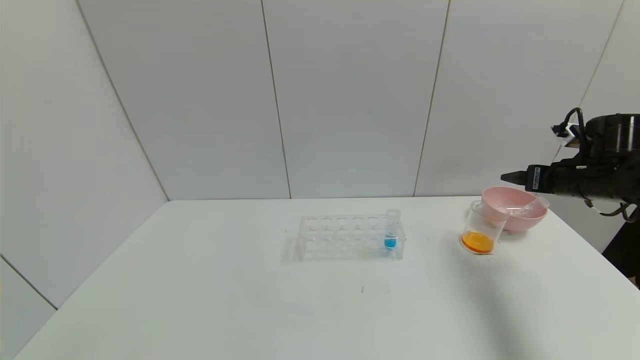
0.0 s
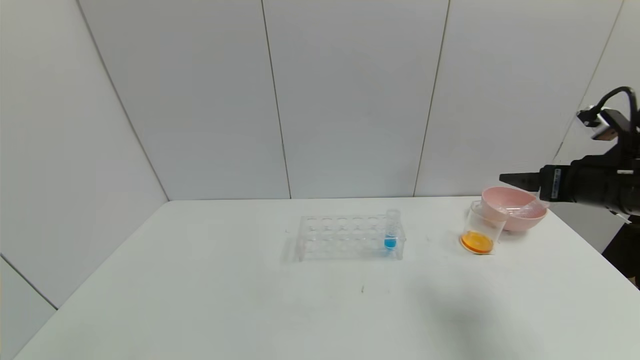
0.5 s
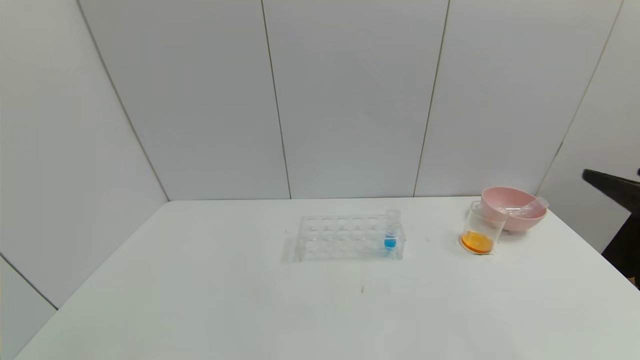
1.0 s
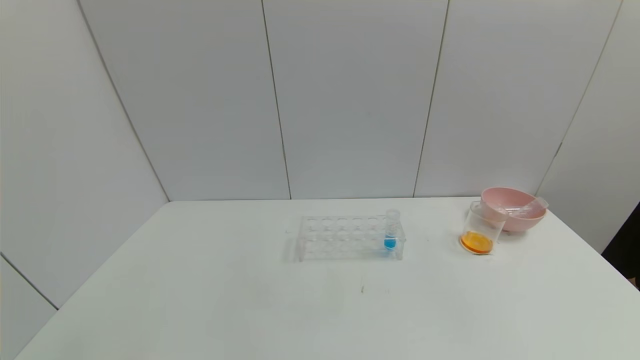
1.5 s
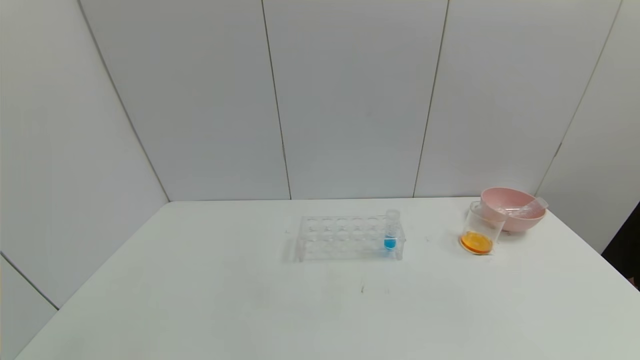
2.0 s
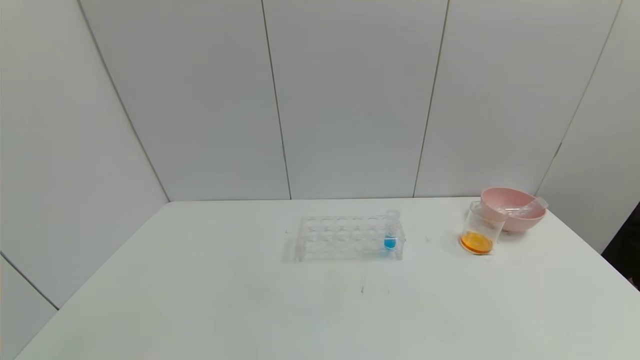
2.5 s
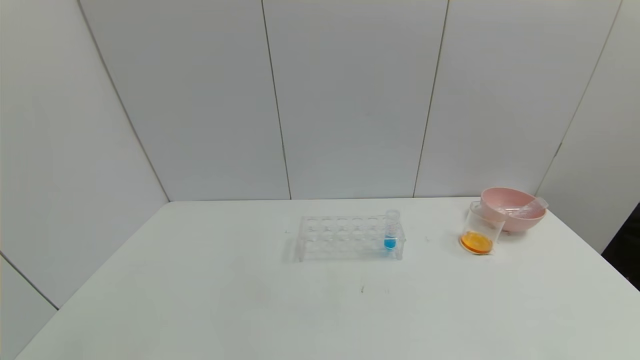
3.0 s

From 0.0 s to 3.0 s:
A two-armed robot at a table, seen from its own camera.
Task of the whole recording: pick up the test tube with yellow pigment and the test tube with red pigment by grippers and pour them into the beaker.
From 0.0 s to 1.5 s: The right gripper heads backward, covering about 35 cm.
